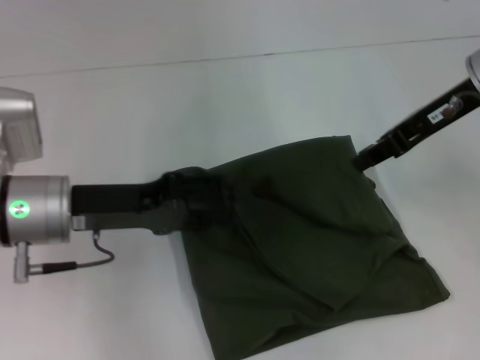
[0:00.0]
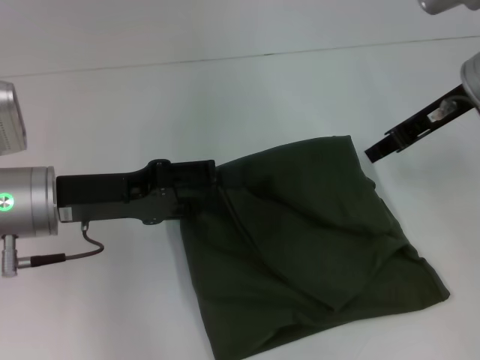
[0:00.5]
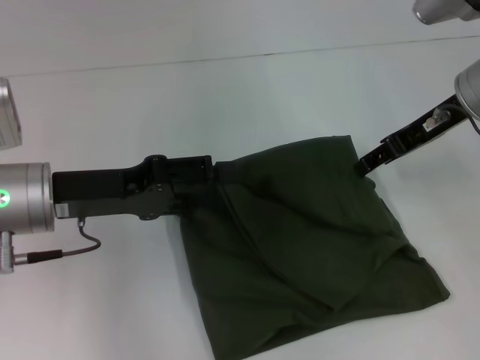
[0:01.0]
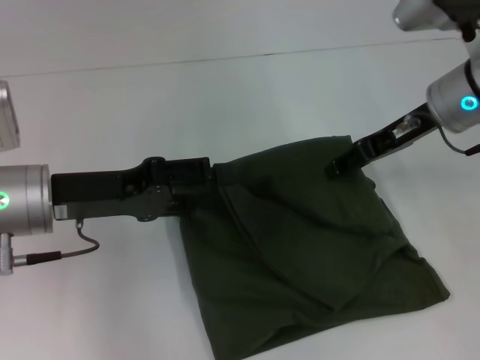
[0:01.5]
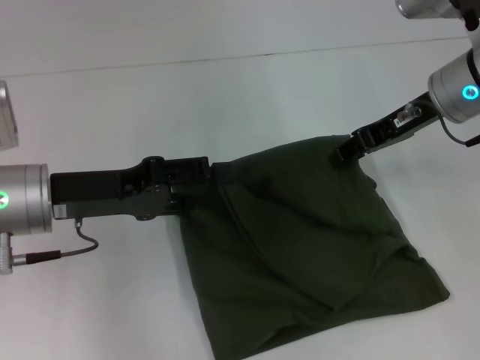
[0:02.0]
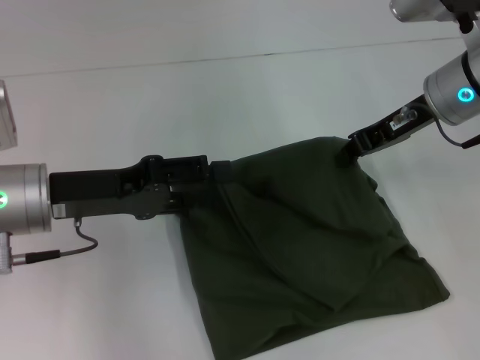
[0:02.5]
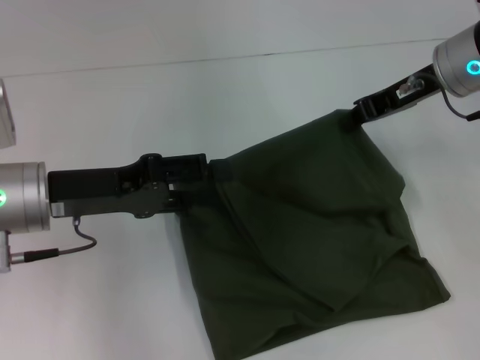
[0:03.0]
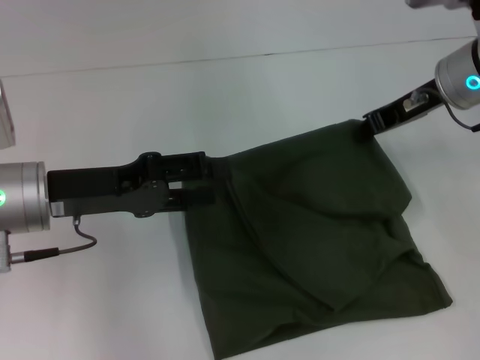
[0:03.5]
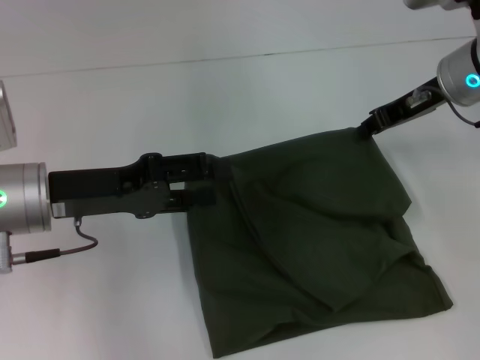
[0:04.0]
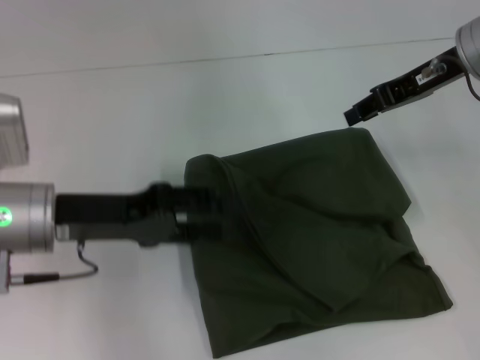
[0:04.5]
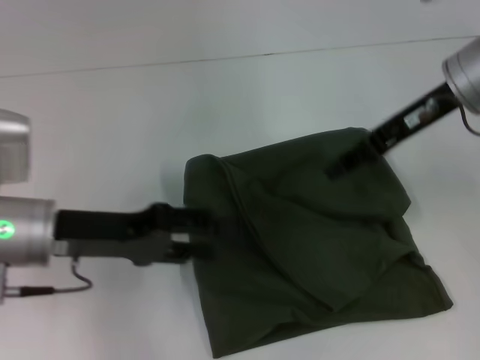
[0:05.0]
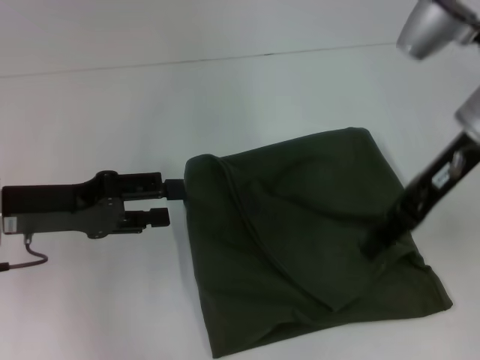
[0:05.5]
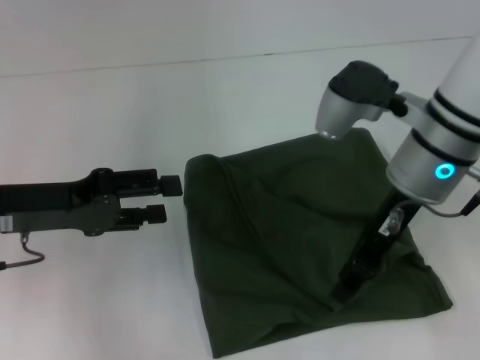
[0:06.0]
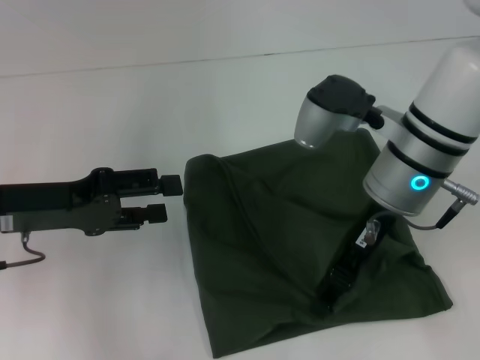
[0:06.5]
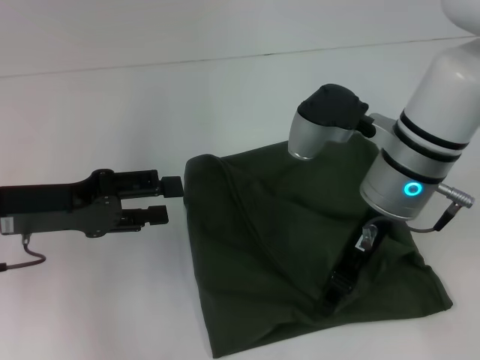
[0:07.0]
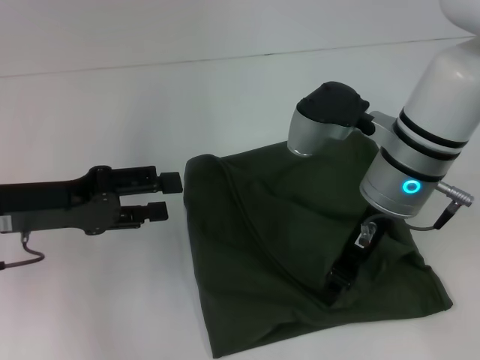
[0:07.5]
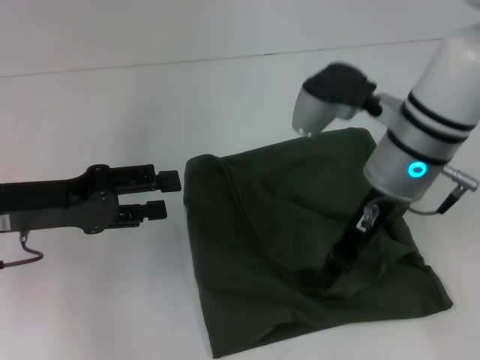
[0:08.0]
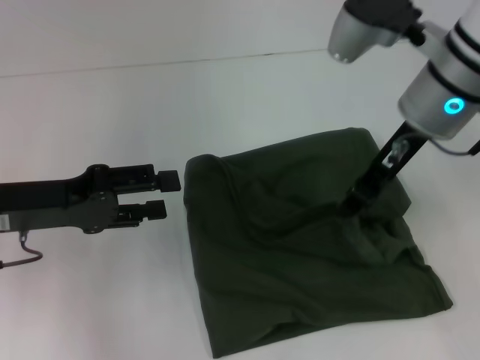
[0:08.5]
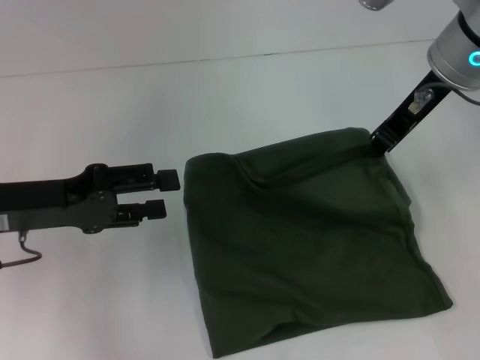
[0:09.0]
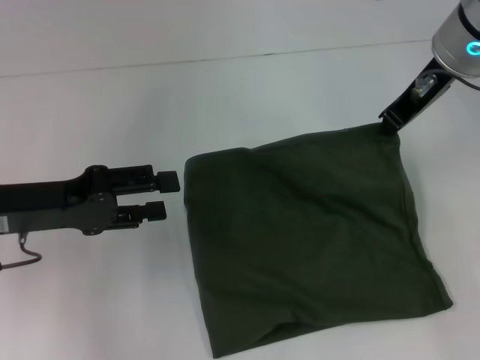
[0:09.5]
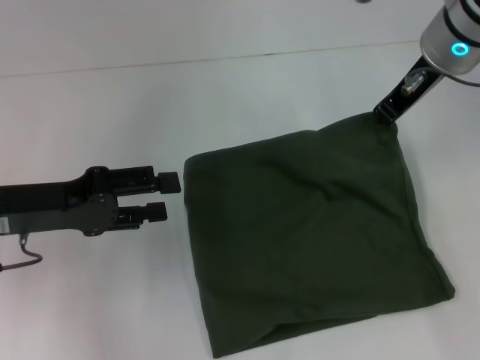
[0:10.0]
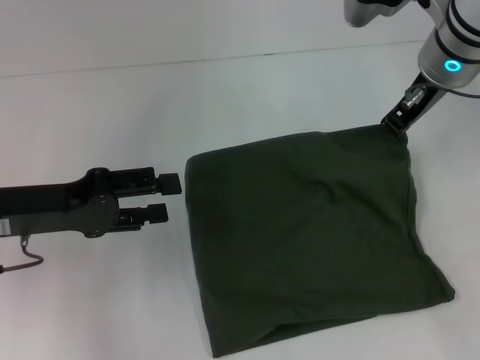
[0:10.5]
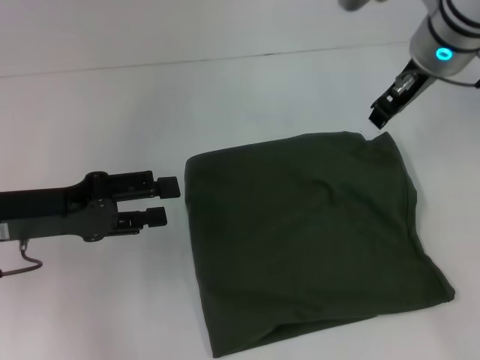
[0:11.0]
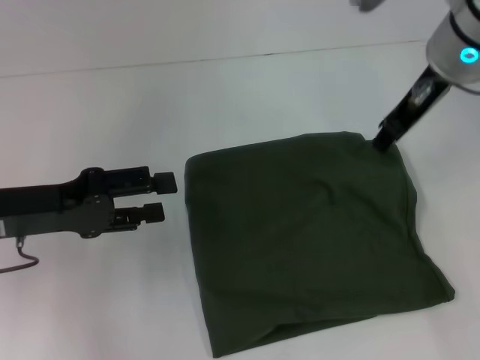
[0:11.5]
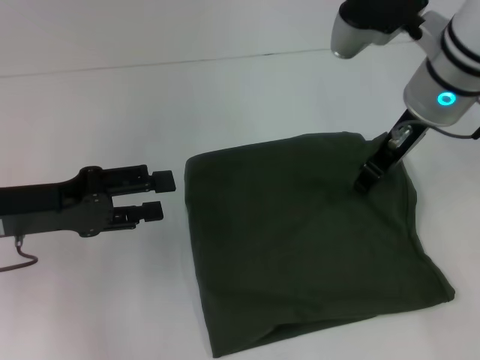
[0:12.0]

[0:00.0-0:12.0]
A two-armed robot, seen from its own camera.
0:00.0 to 0:02.0: The right gripper opens up.
0:02.0 to 0:04.0: The right gripper closes up.
0:04.0 to 0:06.0: The right gripper moves to the left and backward, approximately 10 cm.
0:06.0 to 0:08.0: The right gripper closes.
0:08.0 to 0:10.0: The right gripper is displaced upward and forward by approximately 10 cm.
0:10.0 to 0:12.0: The right gripper opens.

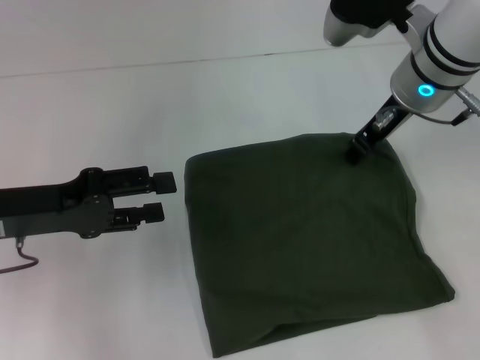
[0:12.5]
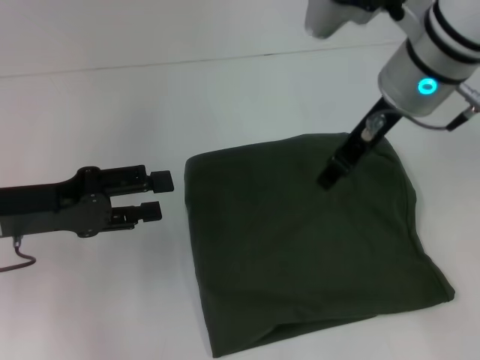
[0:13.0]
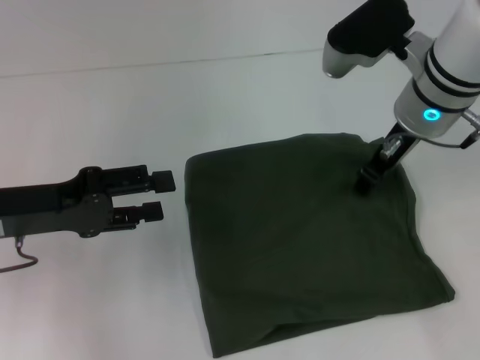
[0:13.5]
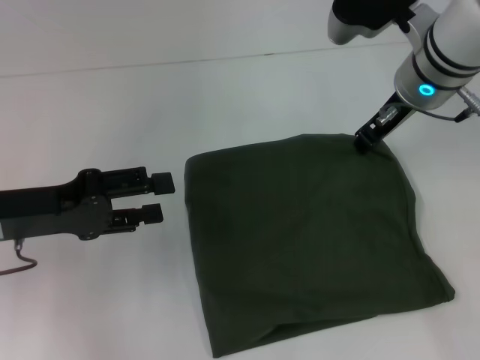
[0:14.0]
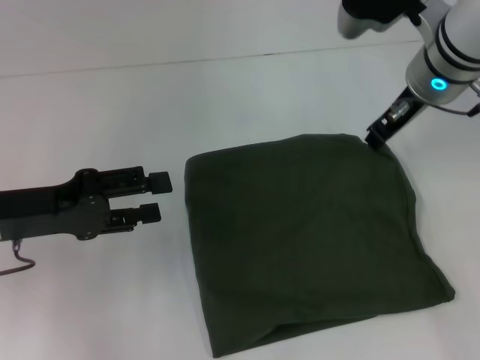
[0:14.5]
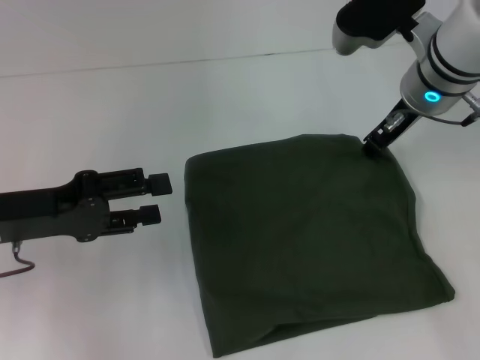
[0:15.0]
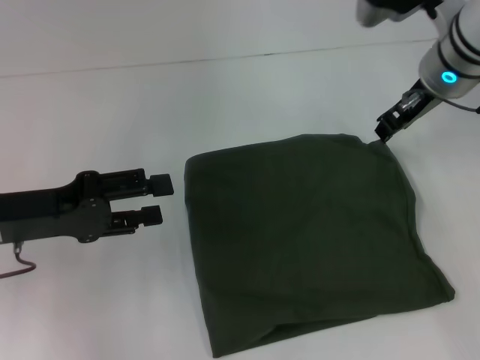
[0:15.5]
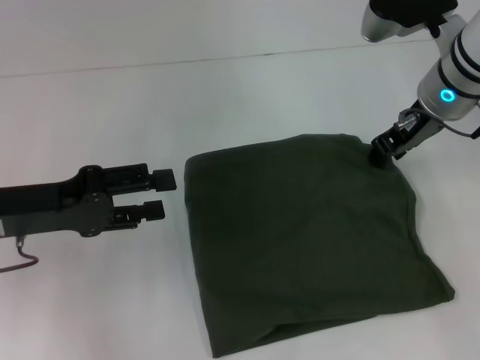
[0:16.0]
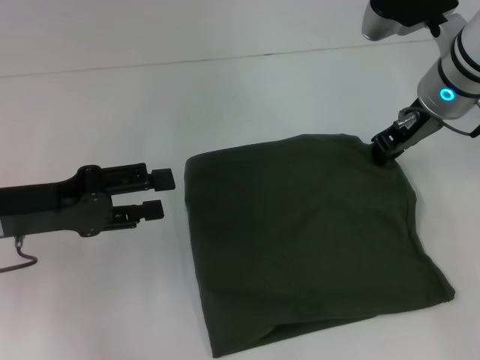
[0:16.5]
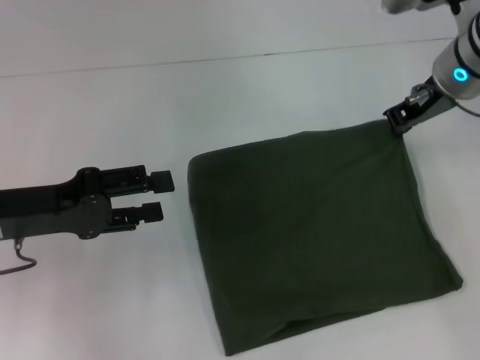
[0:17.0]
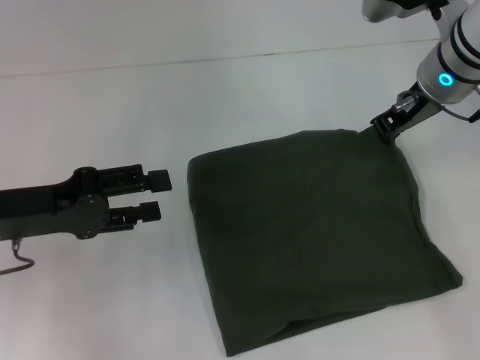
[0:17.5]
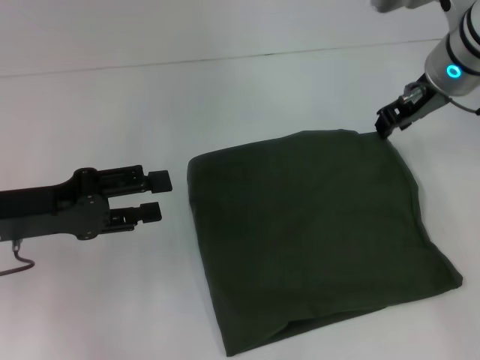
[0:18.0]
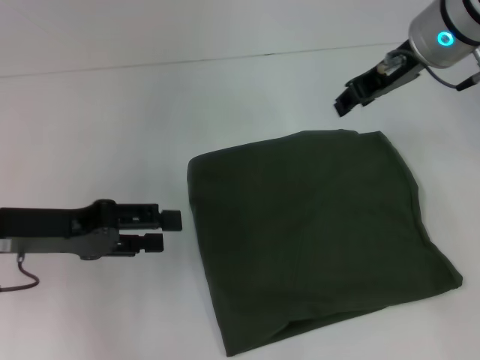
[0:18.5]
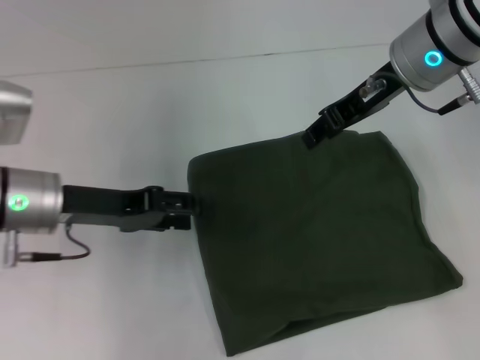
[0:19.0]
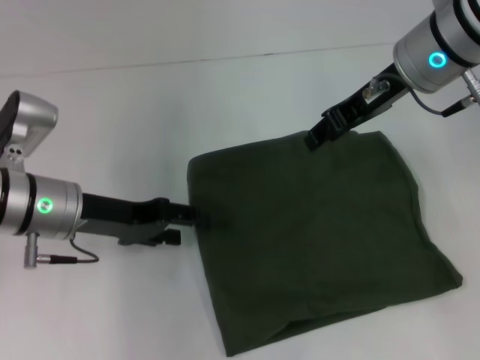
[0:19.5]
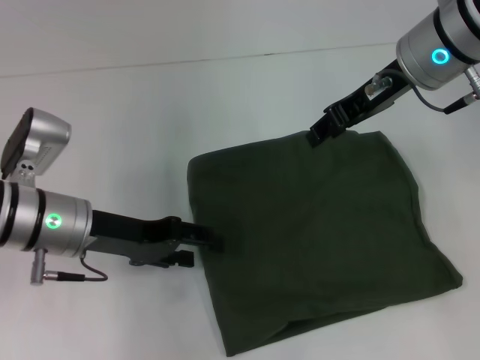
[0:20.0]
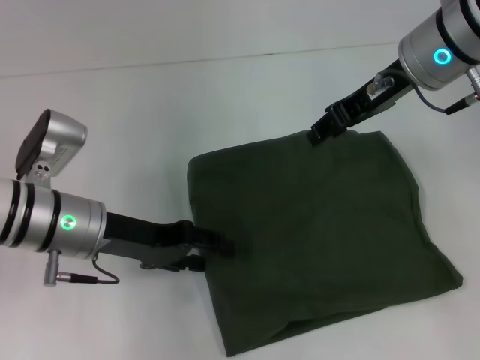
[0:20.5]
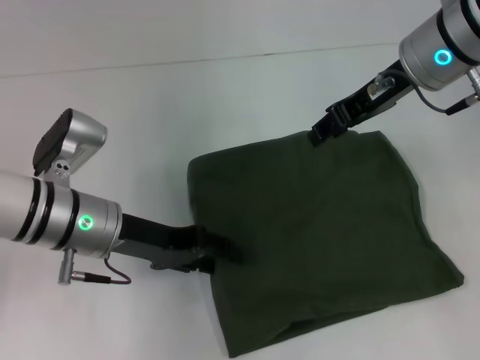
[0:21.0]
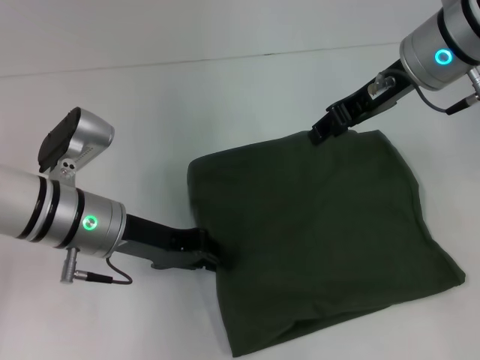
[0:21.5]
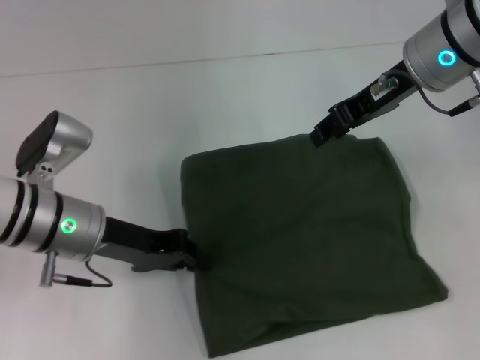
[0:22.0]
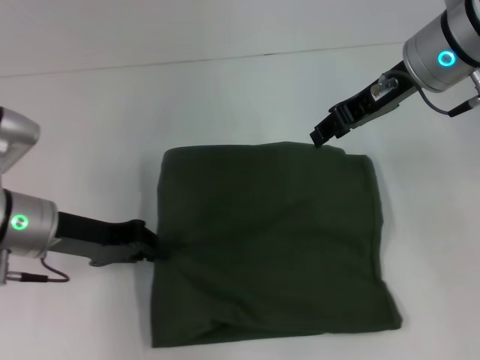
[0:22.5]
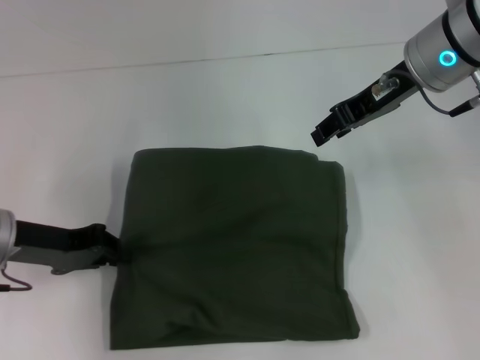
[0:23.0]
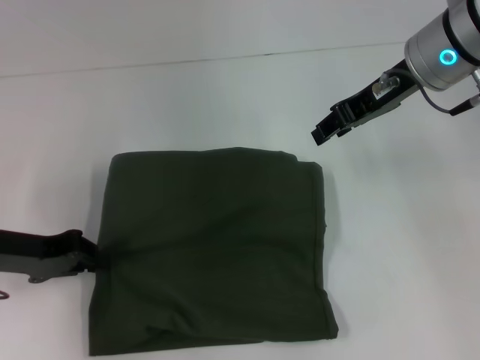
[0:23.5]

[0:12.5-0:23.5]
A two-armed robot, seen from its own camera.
0:12.5 to 0:18.0: The grippers move only a little.
0:18.0 to 0:20.0: The right gripper shifts by approximately 5 cm. Meanwhile the left gripper heads to the right, covering roughly 5 cm.
0:20.0 to 0:21.5: The grippers make only small movements.
0:21.5 to 0:23.5: The left gripper shifts approximately 10 cm to the left, and closes its fingers.

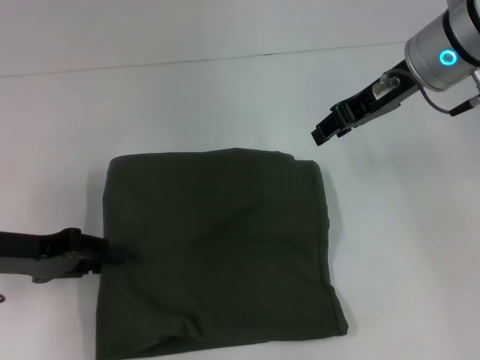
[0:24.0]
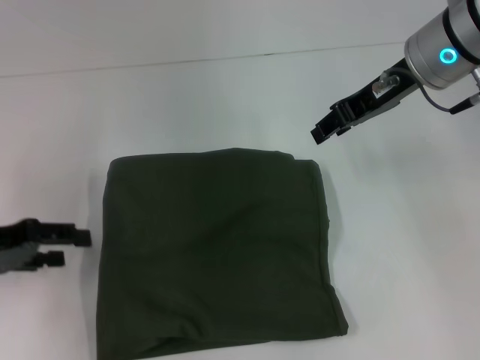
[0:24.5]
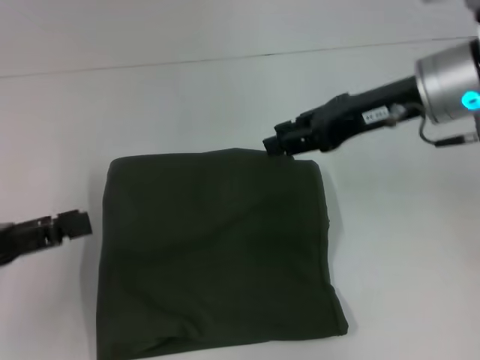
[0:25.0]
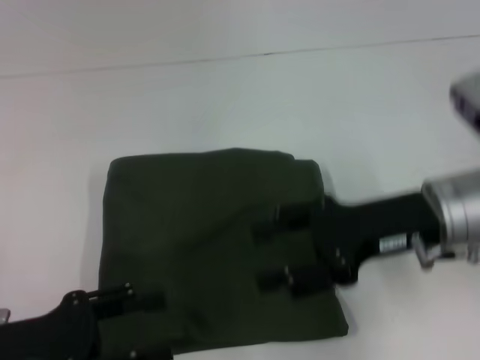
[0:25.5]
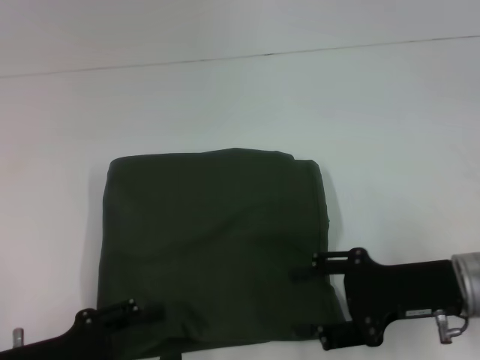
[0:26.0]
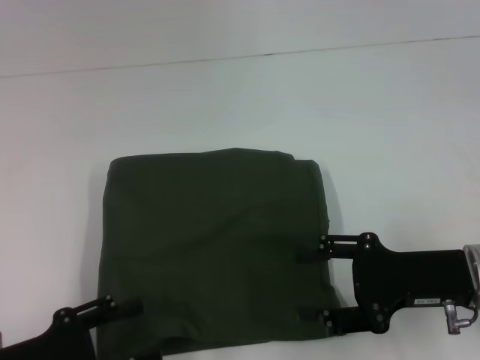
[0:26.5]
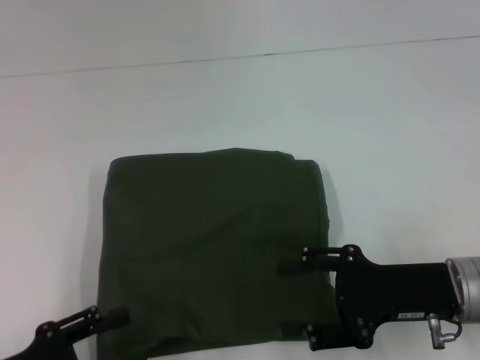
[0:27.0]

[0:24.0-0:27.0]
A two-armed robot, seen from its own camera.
0:24.0 to 0:25.5: The left gripper heads backward, covering roughly 10 cm, and opens its fingers, while the right gripper shifts some 15 cm backward and downward.
0:25.5 to 0:27.0: The left gripper ends up roughly 5 cm from where it was. Meanwhile the right gripper shifts approximately 10 cm downward and backward.
